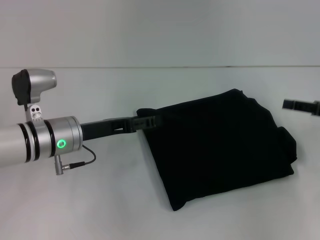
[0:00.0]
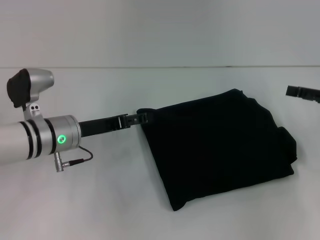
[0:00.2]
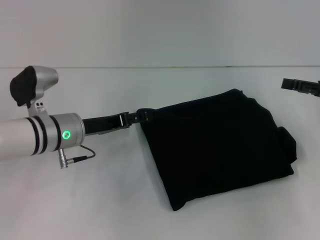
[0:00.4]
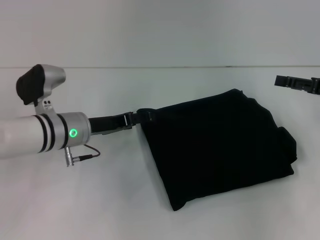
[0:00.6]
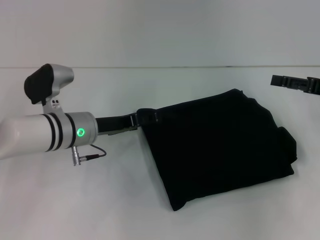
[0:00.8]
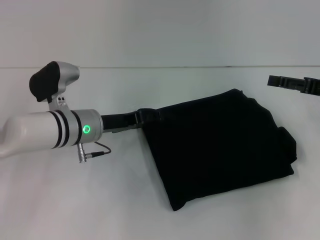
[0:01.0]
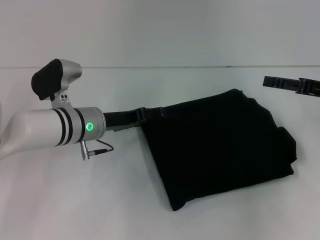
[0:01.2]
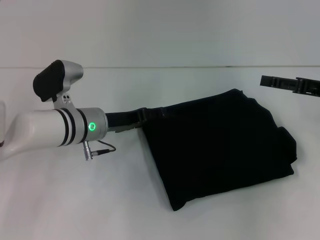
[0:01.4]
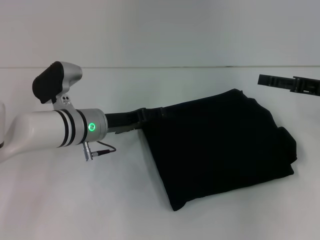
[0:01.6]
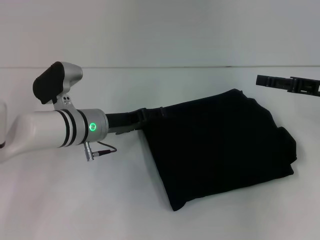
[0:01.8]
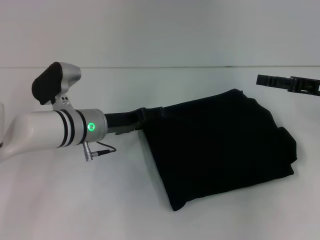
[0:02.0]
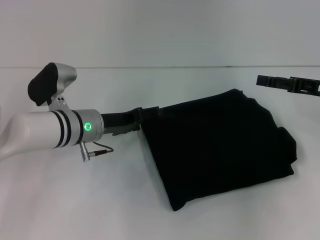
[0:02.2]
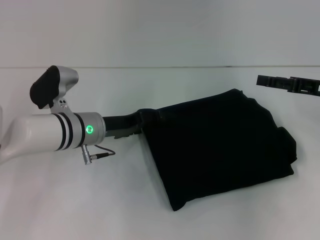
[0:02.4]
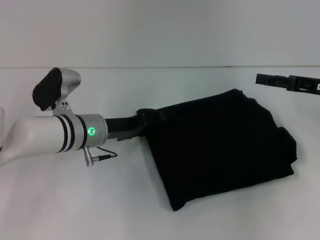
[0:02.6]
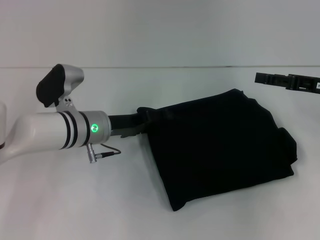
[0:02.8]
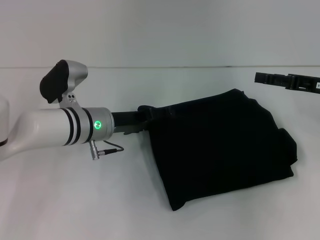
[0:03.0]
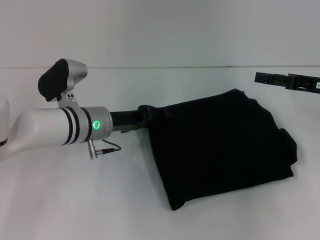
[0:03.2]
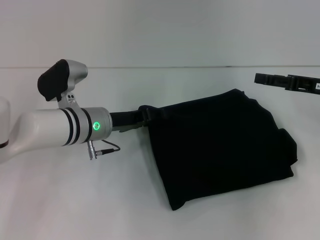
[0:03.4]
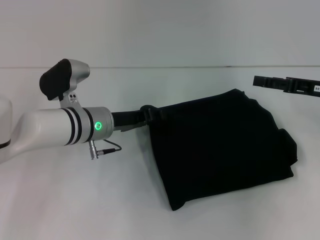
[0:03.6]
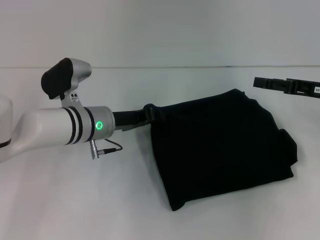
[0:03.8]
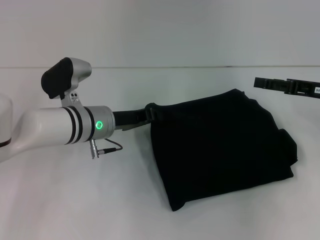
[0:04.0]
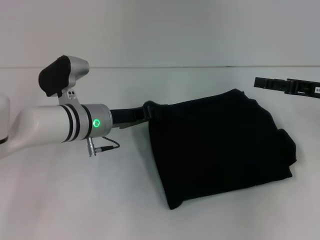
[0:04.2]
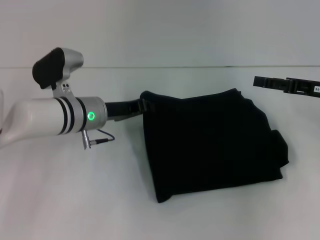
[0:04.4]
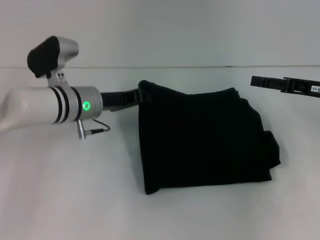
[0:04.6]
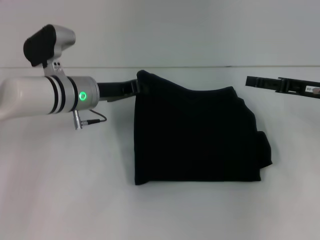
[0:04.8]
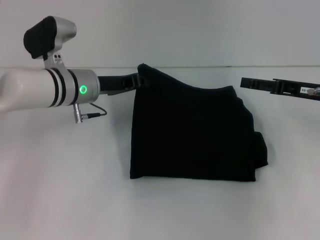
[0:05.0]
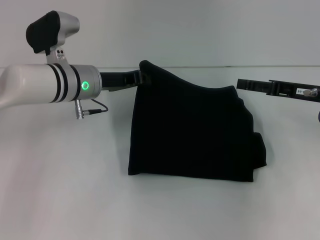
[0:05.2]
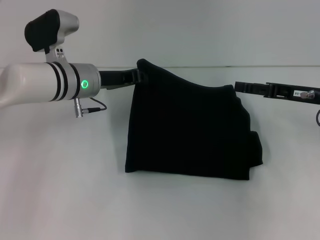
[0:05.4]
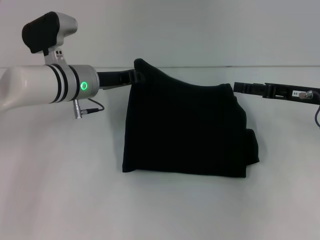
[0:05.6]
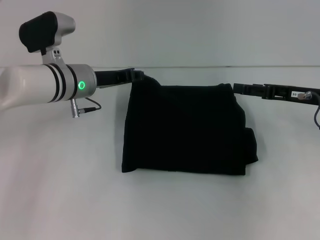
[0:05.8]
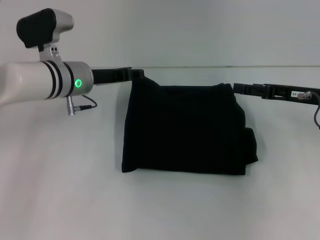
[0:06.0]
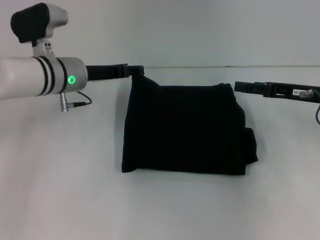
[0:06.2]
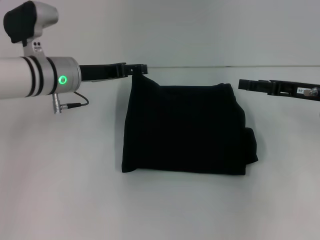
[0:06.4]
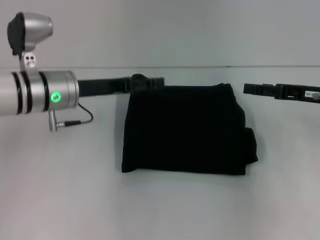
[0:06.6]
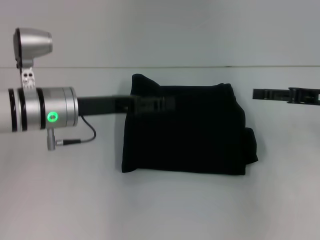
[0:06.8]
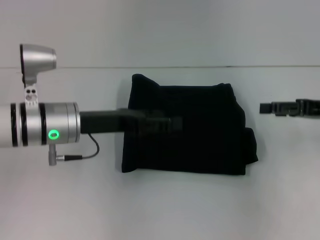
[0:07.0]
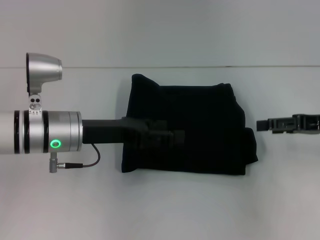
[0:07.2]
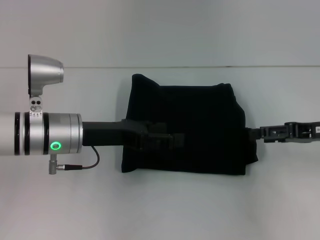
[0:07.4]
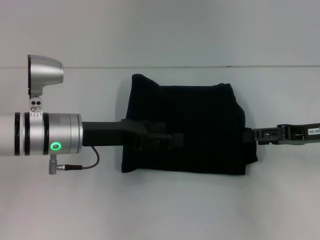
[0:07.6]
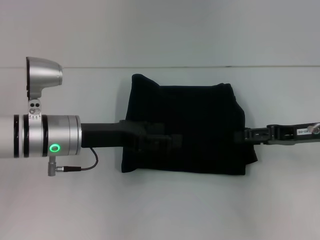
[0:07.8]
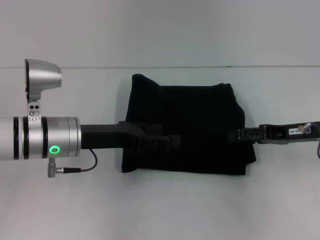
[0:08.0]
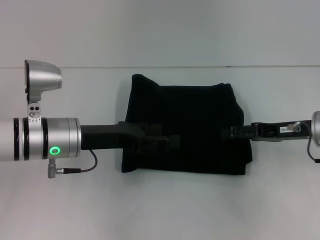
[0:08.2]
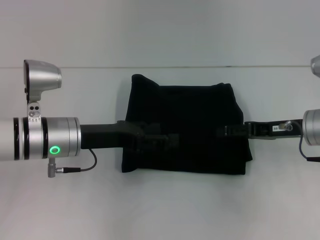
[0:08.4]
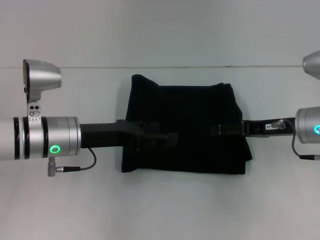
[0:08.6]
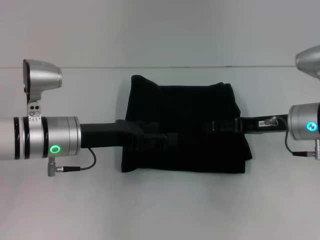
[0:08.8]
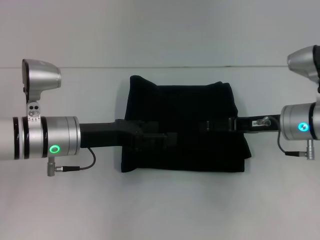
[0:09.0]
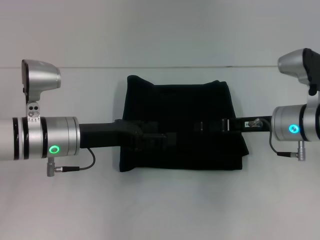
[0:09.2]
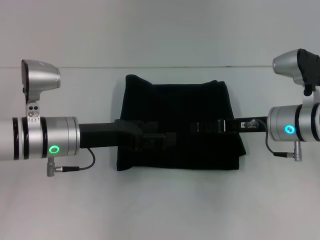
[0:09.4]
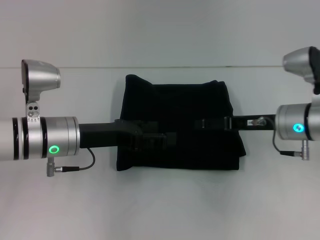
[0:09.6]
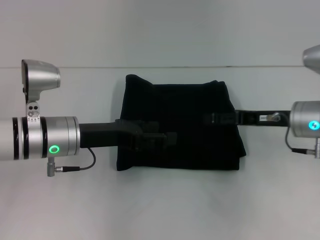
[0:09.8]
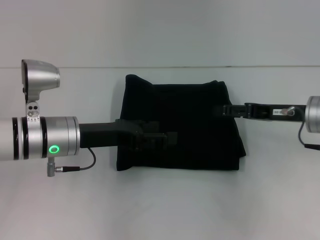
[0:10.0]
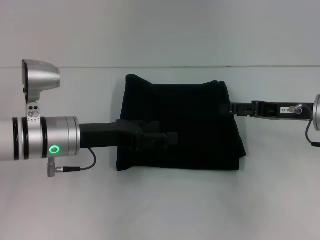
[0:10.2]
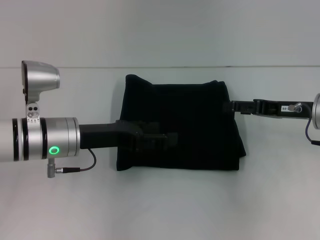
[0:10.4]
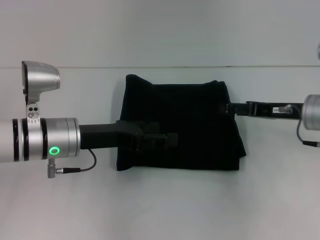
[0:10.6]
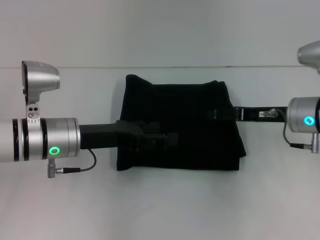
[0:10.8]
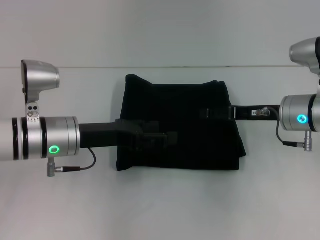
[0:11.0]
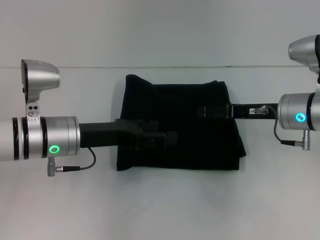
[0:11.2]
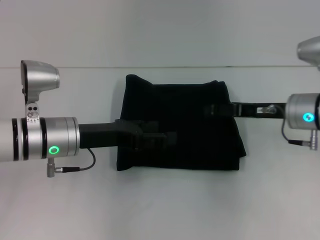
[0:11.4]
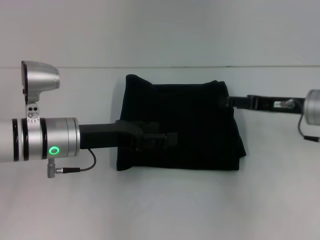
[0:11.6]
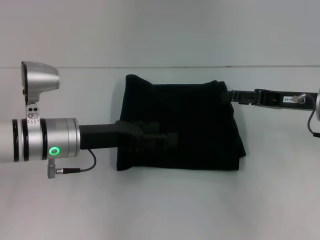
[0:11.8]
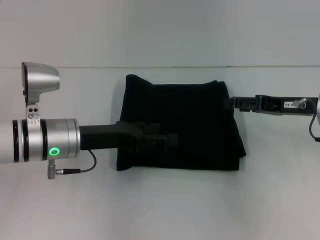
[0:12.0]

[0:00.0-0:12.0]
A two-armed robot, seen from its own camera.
0:00.0 to 0:01.6: The right gripper opens. Meanwhile the left gripper changes place by some 5 cm.
0:01.6 to 0:03.0: Both grippers stay about where they are.
0:03.0 to 0:04.4: The left gripper closes up.
0:04.4 to 0:06.0: The left gripper changes place by roughly 5 cm.
0:06.0 to 0:07.6: The left gripper heads backward, covering some 10 cm, and opens up.
0:07.6 to 0:09.0: The right gripper goes roughly 10 cm to the left.
0:09.0 to 0:12.0: The grippers stay close to where they were, moving slightly.

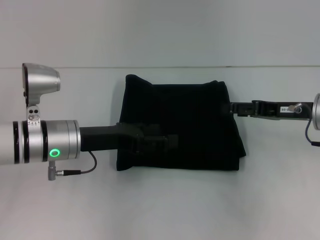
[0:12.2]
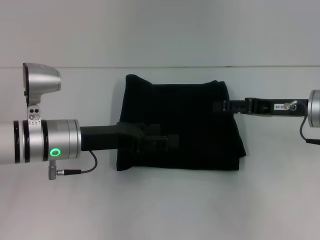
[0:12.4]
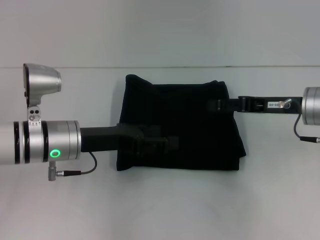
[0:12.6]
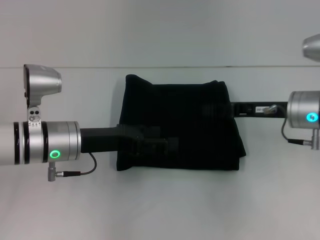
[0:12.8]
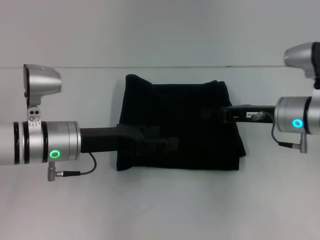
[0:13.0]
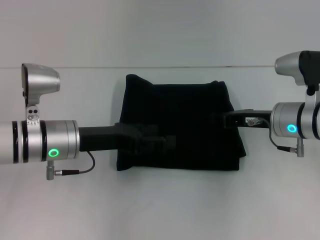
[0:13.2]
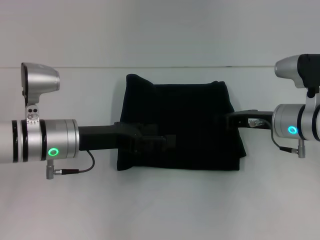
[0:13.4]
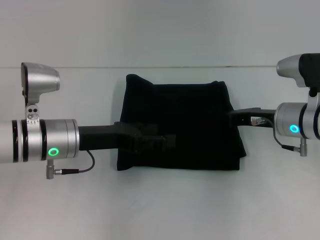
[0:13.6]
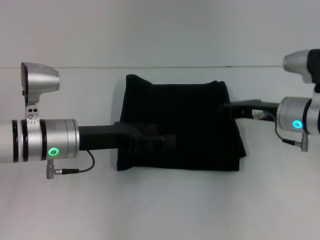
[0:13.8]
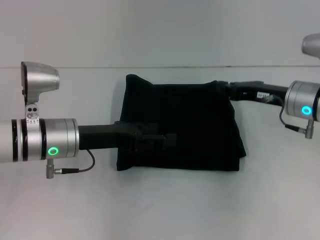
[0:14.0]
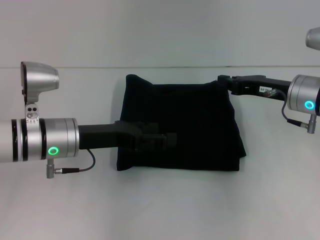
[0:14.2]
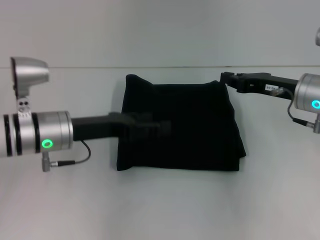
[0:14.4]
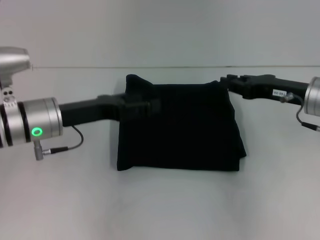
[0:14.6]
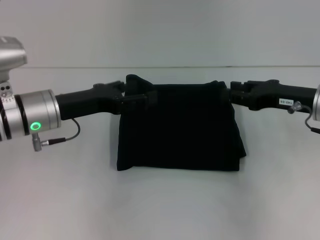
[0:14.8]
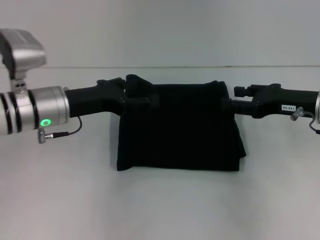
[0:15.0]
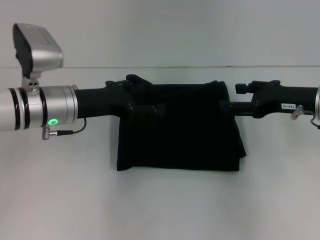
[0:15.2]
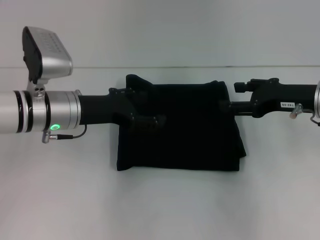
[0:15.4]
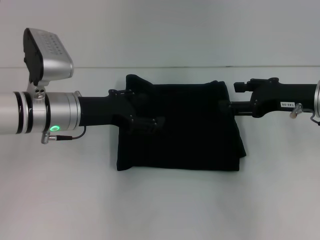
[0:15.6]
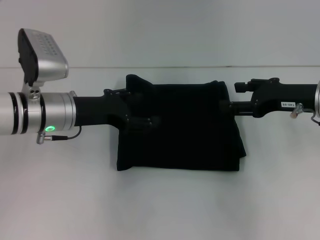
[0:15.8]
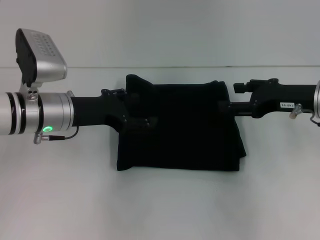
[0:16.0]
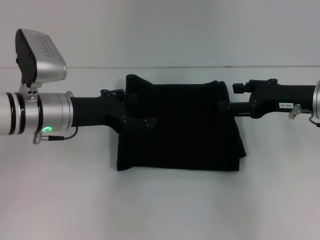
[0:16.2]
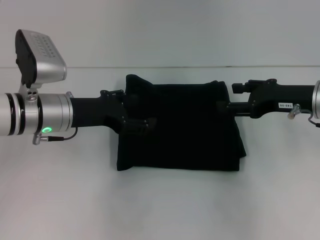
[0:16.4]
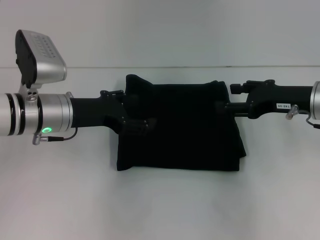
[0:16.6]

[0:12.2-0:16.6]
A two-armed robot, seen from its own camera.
0:12.2 to 0:13.6: The right gripper ends up roughly 5 cm from where it was, and closes its fingers.
0:13.6 to 0:15.2: The right gripper goes roughly 5 cm upward, and opens its fingers.
0:15.2 to 0:16.6: The grippers make only small movements.

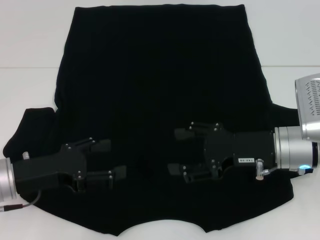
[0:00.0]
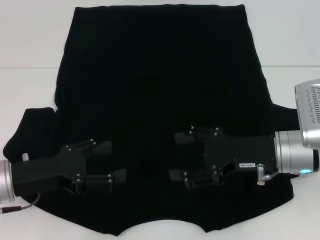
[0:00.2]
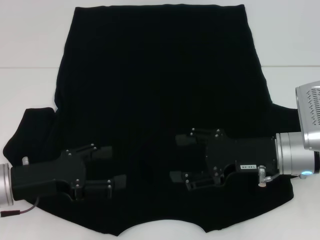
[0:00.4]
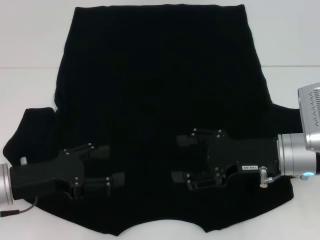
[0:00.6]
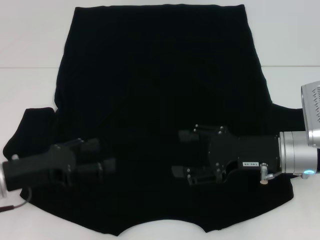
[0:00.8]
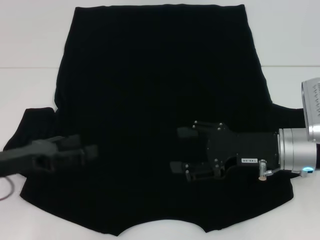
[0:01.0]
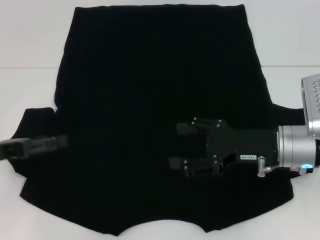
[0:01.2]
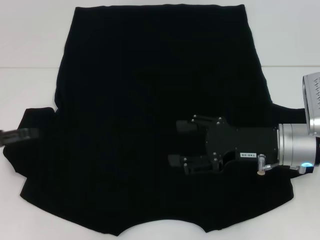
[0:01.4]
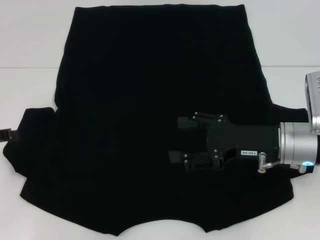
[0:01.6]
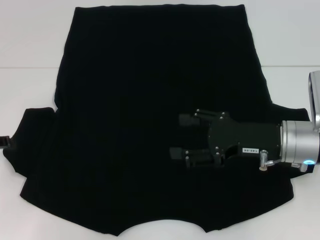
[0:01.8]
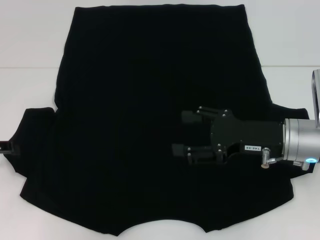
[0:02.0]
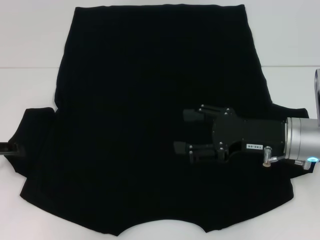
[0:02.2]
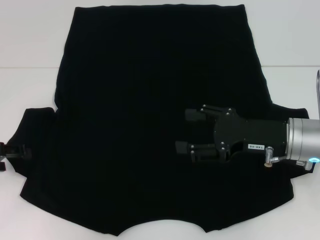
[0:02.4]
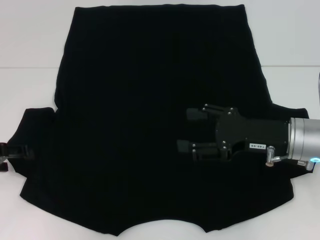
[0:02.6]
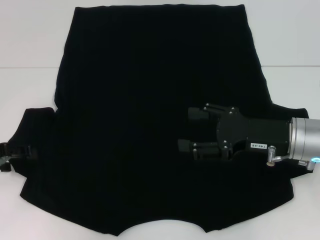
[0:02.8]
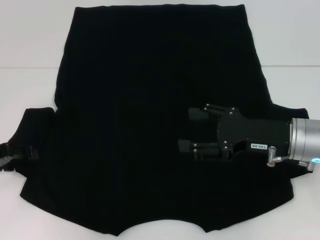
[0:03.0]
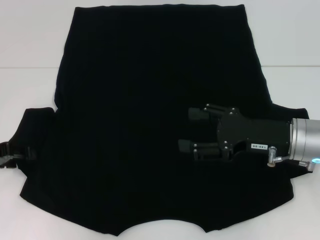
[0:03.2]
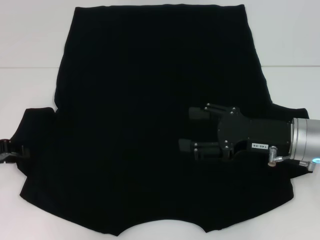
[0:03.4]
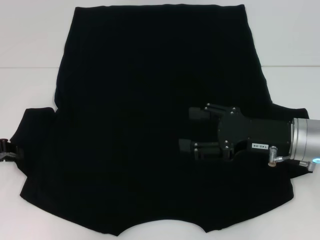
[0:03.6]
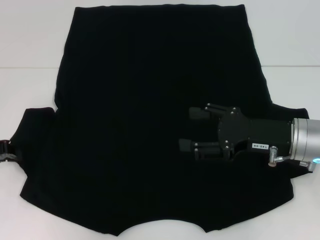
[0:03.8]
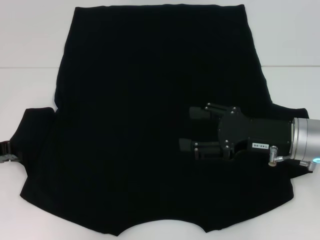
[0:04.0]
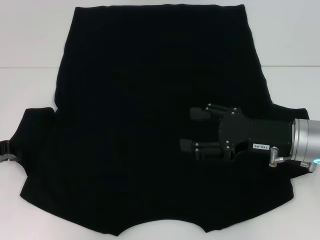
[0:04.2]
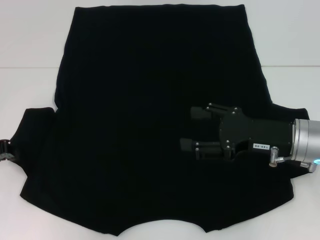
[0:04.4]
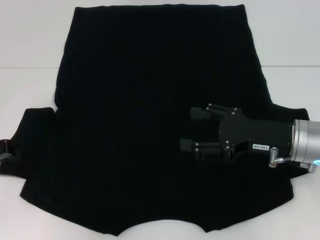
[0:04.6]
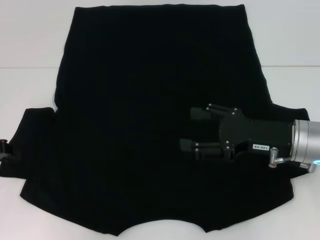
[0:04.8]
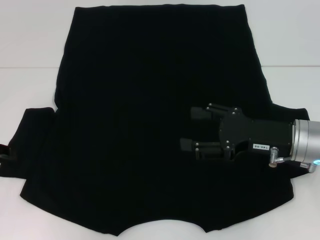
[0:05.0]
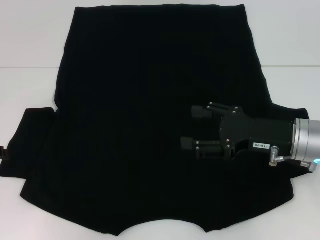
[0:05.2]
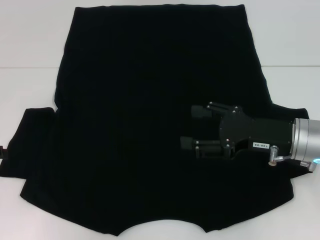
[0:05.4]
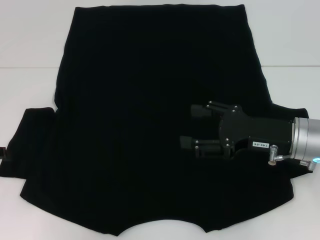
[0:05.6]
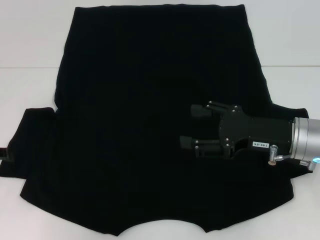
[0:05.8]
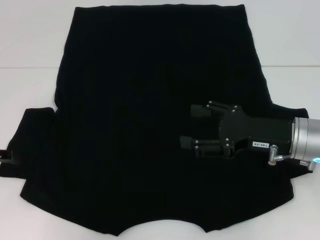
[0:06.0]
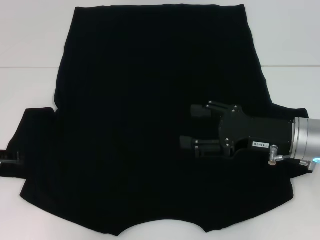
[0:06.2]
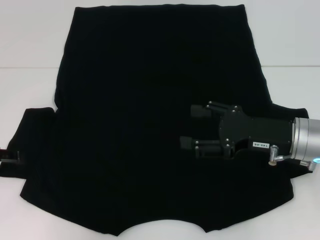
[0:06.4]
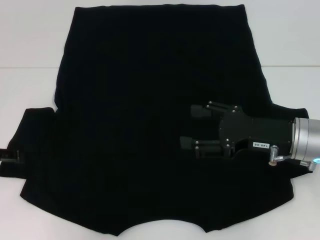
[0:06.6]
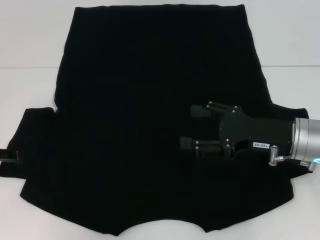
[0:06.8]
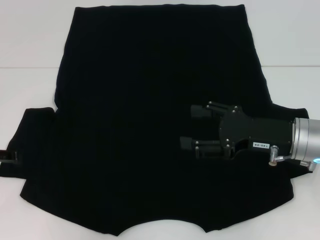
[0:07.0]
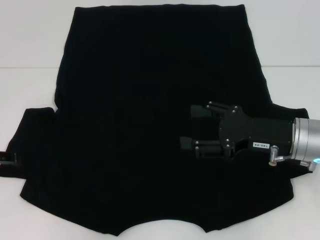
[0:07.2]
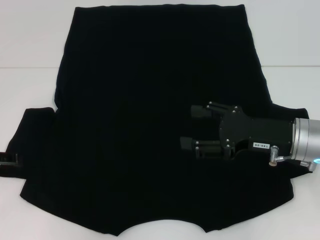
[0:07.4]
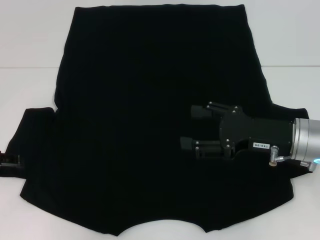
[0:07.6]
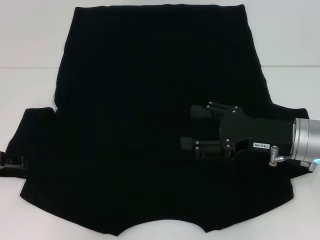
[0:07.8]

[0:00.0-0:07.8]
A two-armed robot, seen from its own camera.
0:00.0 to 0:01.6: The left gripper is displaced to the left by roughly 10 cm.
0:01.6 to 0:03.2: The grippers move only a little.
0:06.2 to 0:07.8: Both grippers stay put.
